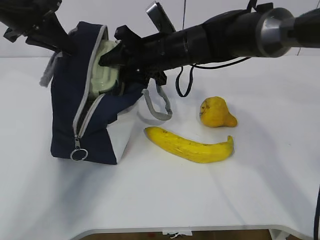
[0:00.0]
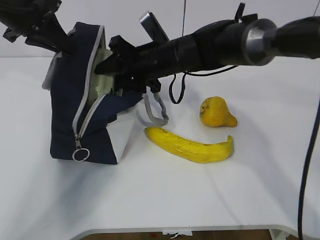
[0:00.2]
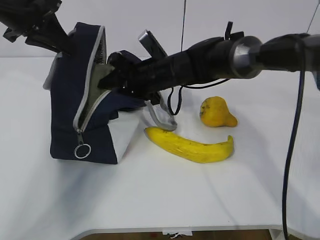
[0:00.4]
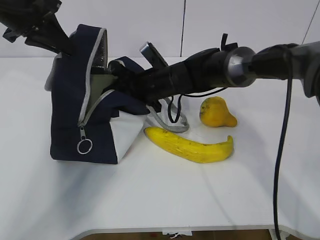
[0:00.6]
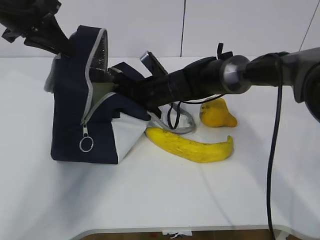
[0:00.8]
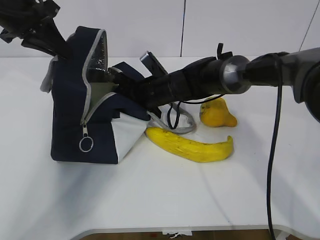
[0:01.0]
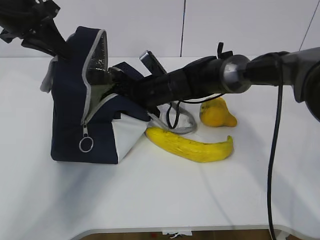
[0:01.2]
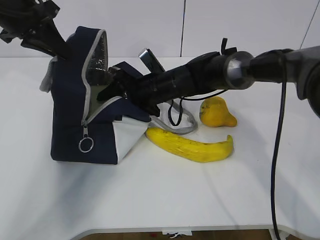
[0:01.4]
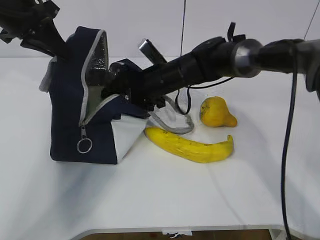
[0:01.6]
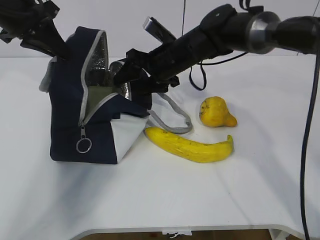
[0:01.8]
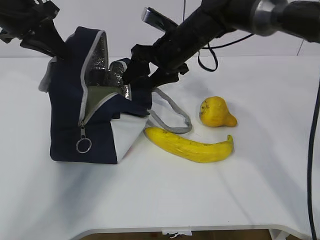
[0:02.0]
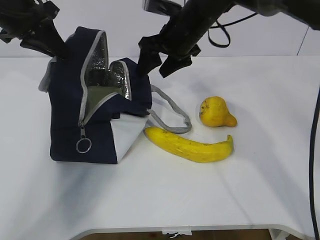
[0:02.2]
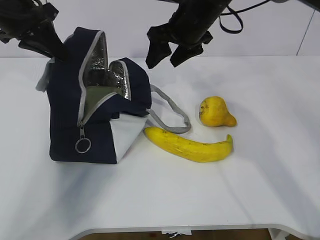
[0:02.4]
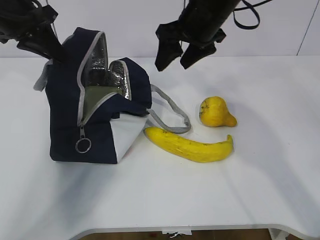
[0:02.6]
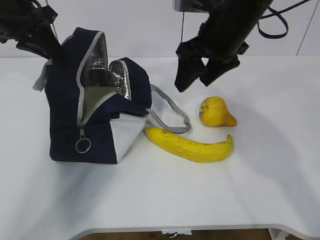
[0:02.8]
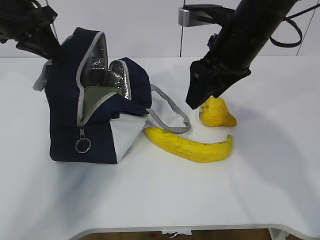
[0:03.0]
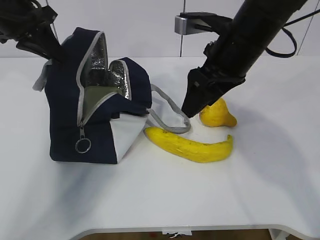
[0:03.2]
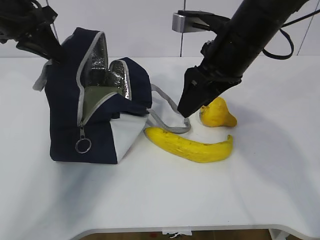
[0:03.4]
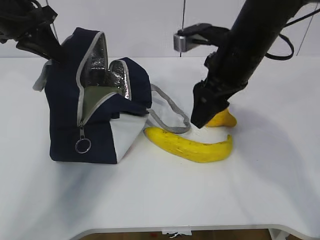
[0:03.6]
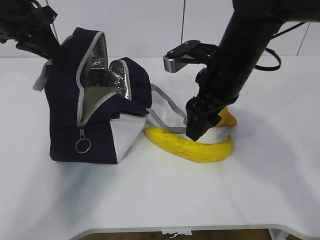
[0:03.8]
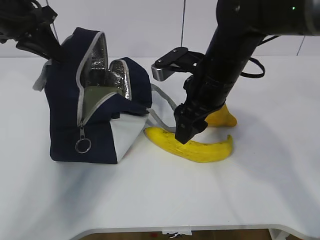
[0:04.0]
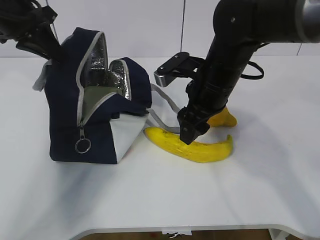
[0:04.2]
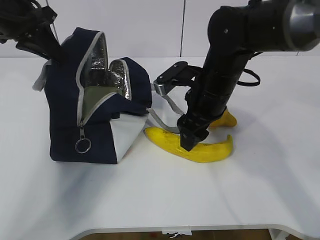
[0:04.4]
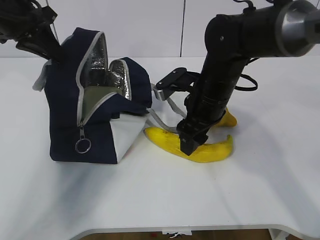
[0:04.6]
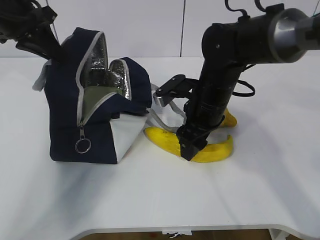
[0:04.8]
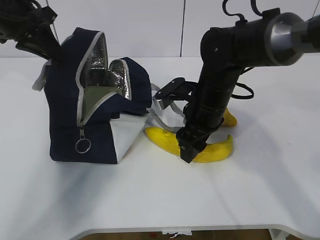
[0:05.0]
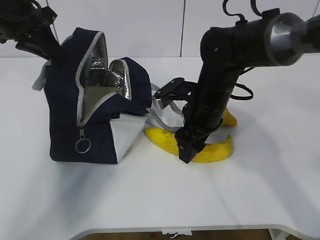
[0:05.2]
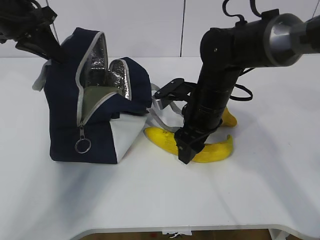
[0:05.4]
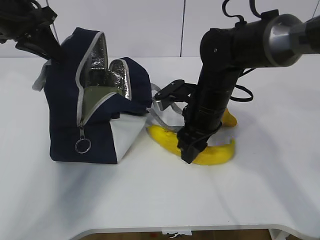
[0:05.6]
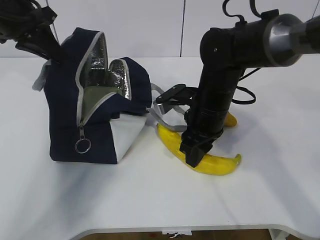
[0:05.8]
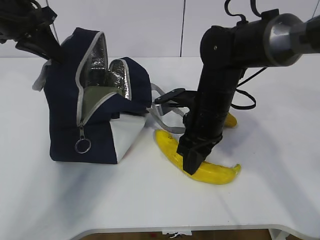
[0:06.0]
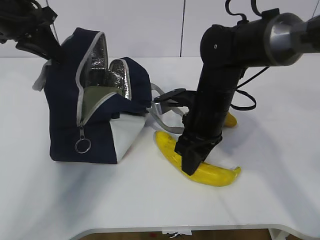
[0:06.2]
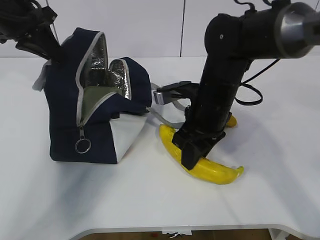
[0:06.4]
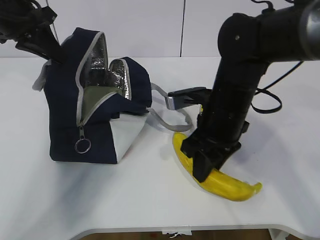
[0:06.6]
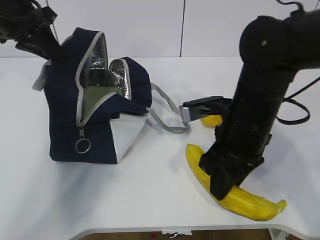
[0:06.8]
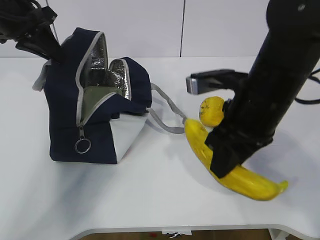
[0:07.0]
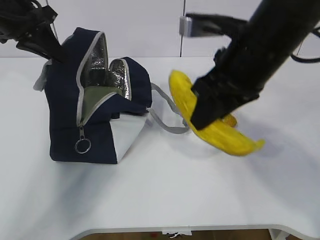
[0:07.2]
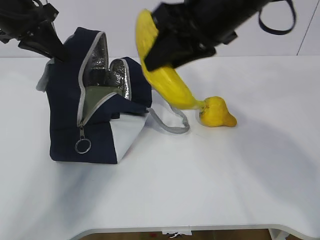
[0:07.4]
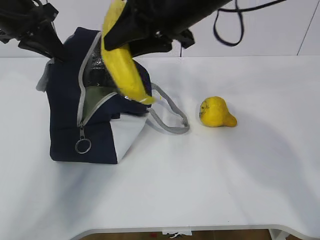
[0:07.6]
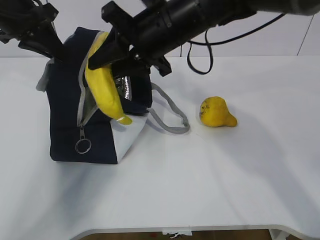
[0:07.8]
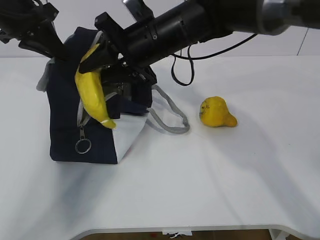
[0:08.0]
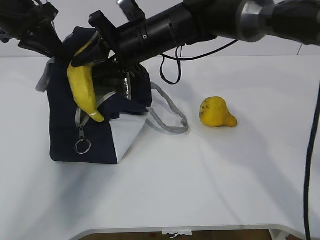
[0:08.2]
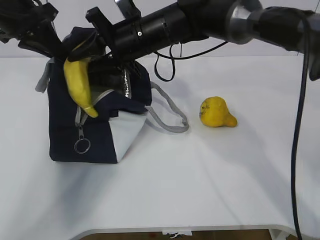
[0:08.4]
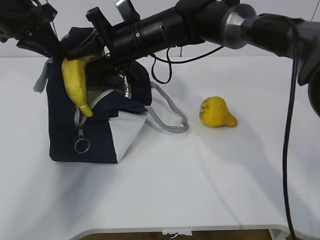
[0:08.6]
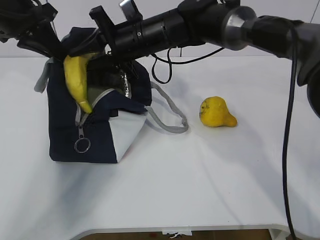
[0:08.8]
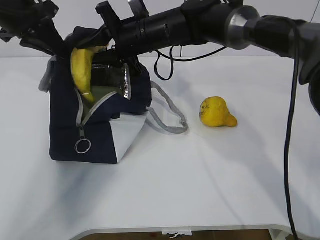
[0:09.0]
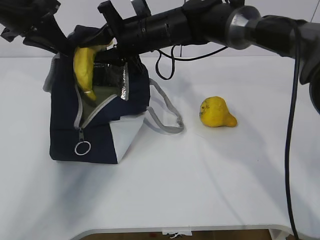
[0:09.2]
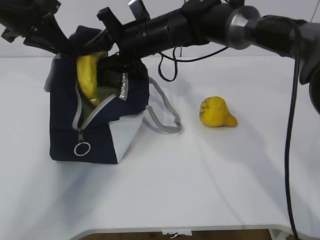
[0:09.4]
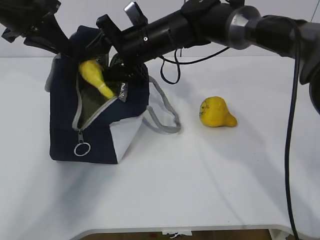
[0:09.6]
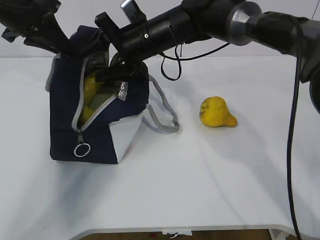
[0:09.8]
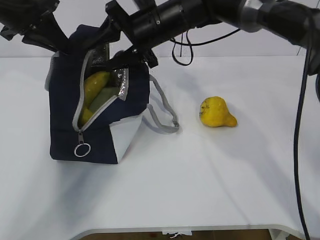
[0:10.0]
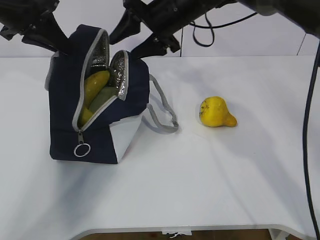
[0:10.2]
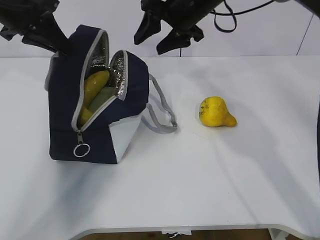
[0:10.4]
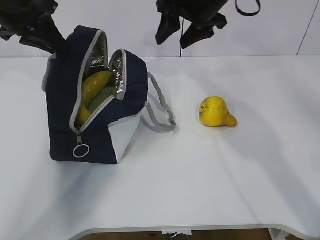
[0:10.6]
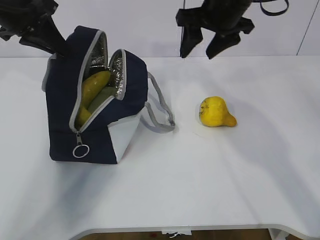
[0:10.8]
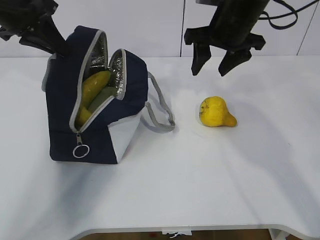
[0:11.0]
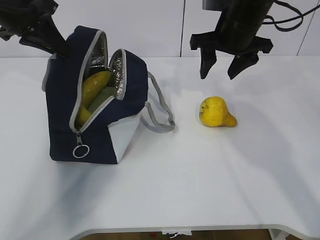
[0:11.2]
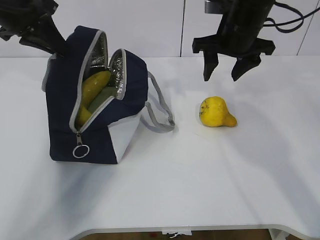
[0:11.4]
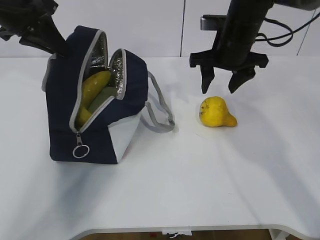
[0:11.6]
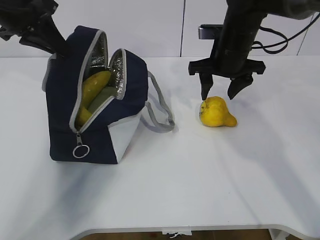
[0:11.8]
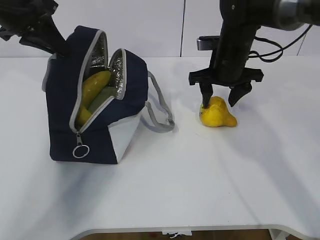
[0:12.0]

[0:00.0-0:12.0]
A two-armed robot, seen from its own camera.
Step, 0:00.0 to 0:02.0: Place the box into the package with the right gripper.
Step, 0:02.2 to 0:05.8: Grasp the banana with the right gripper.
Step, 0:06.0 to 0:10.0: Place the banana into the package with the right gripper.
0:00.0 to 0:01.6: The right gripper goes about 10 cm downward, and opens up.
0:01.6 to 0:03.0: The right gripper is displaced upward, backward and to the right by about 20 cm.
0:03.0 to 0:04.4: The right gripper travels downward by roughly 10 cm.
0:04.4 to 0:06.0: The right gripper closes its fingers.
0:06.0 to 0:07.6: The right gripper heads upward, covering about 20 cm.
0:07.6 to 0:09.0: The right gripper travels forward, downward and to the left by roughly 15 cm.
0:09.0 to 0:10.4: The right gripper moves to the right, approximately 10 cm, and opens its fingers.
0:10.4 to 0:12.0: The right gripper goes some 10 cm downward and to the right.

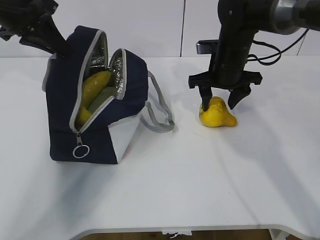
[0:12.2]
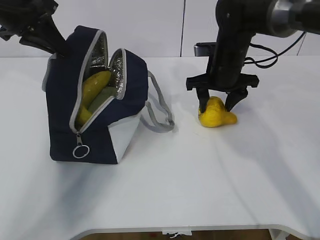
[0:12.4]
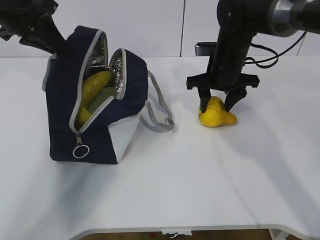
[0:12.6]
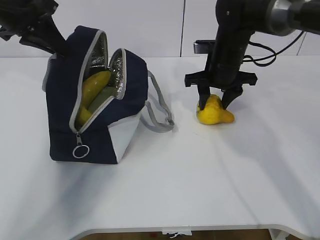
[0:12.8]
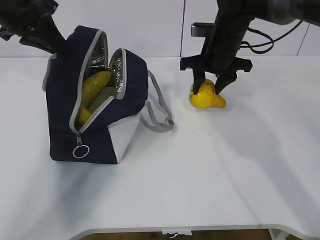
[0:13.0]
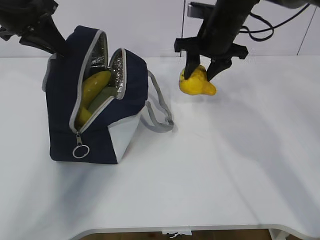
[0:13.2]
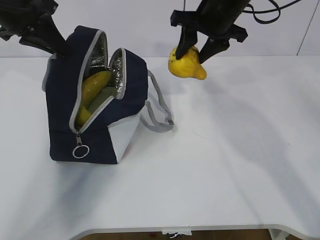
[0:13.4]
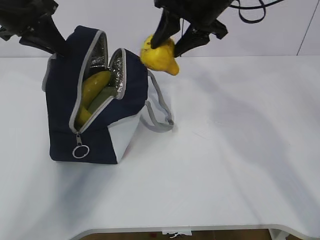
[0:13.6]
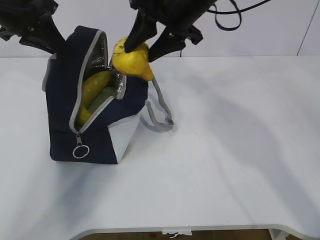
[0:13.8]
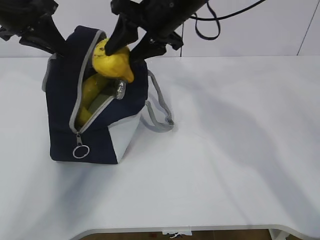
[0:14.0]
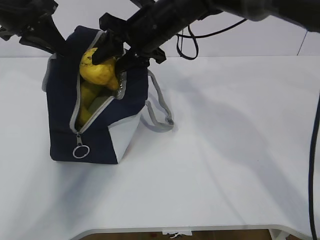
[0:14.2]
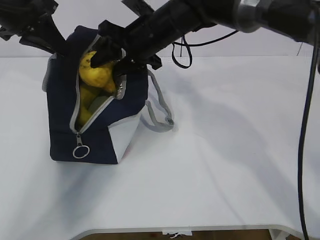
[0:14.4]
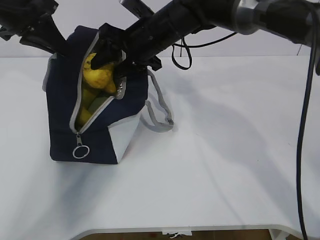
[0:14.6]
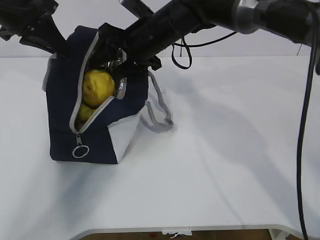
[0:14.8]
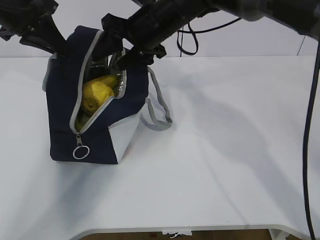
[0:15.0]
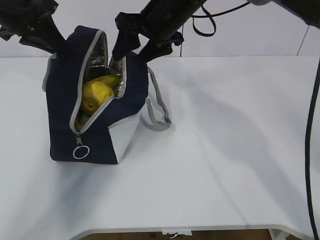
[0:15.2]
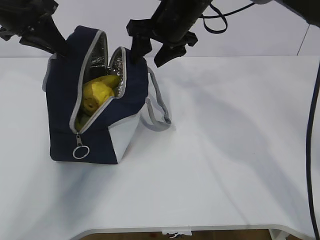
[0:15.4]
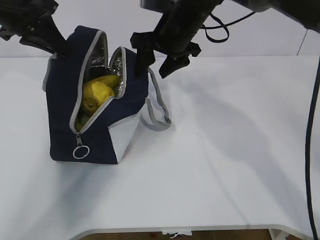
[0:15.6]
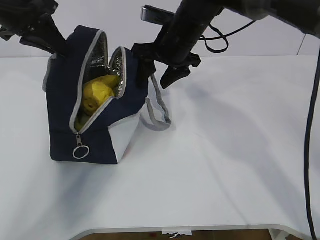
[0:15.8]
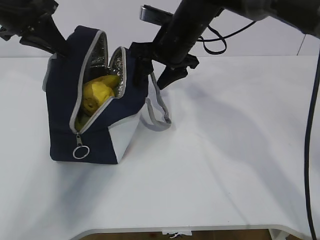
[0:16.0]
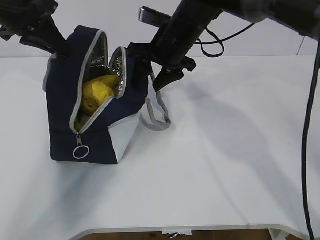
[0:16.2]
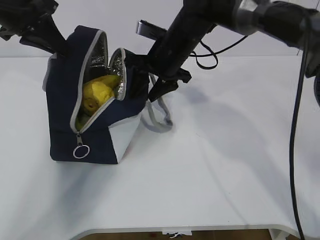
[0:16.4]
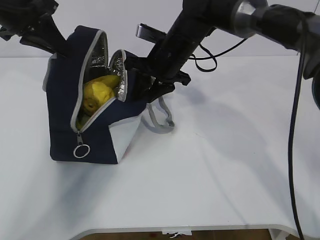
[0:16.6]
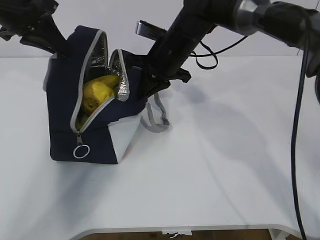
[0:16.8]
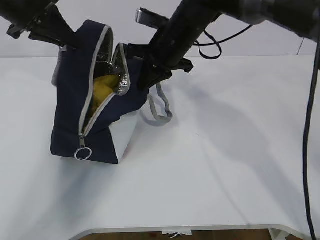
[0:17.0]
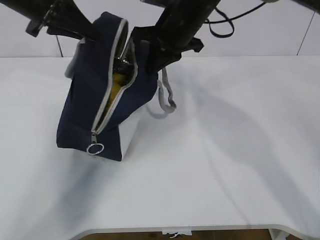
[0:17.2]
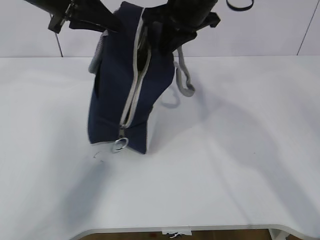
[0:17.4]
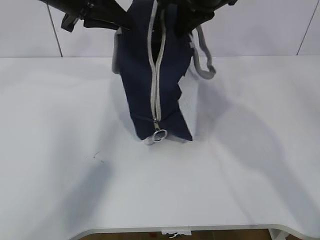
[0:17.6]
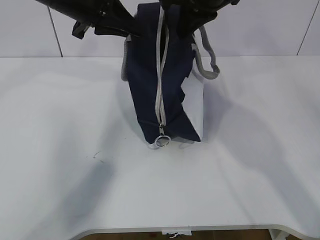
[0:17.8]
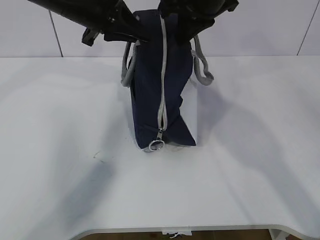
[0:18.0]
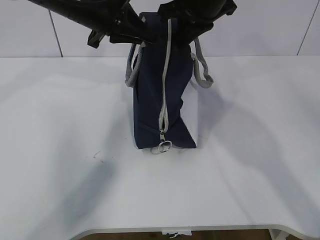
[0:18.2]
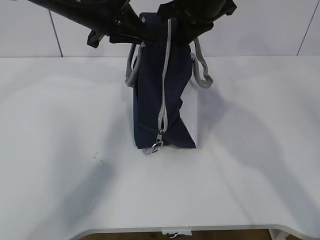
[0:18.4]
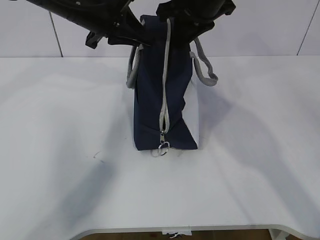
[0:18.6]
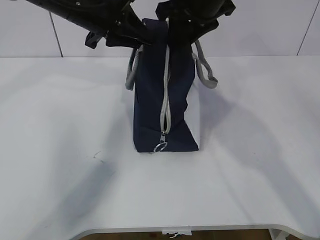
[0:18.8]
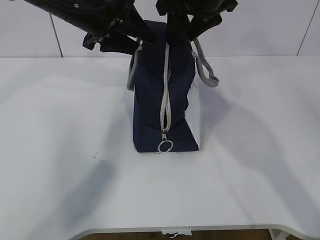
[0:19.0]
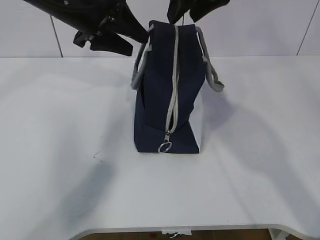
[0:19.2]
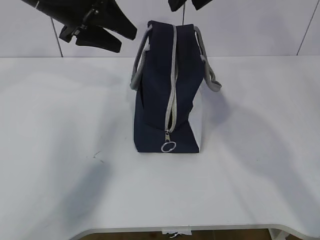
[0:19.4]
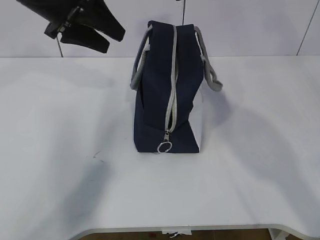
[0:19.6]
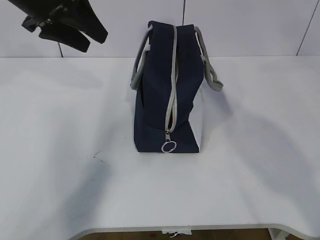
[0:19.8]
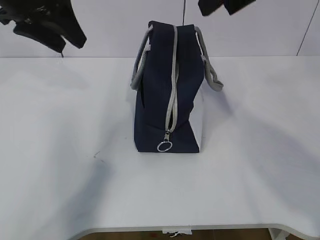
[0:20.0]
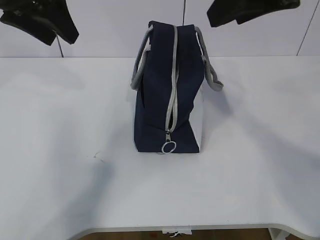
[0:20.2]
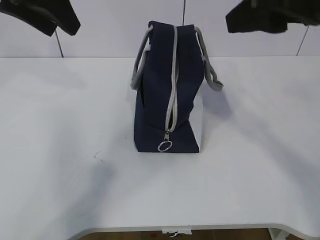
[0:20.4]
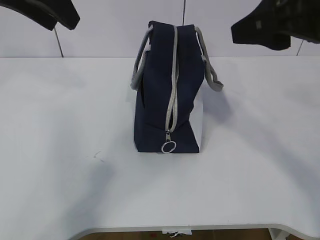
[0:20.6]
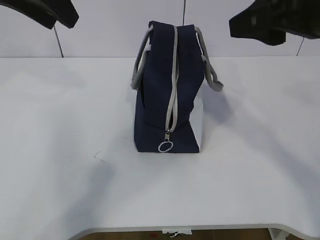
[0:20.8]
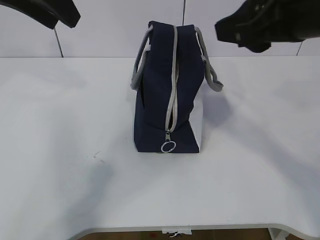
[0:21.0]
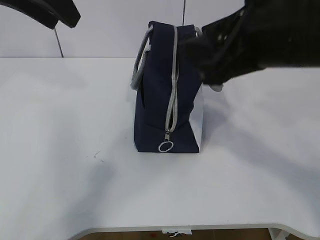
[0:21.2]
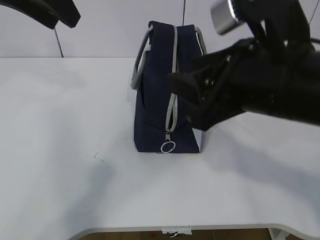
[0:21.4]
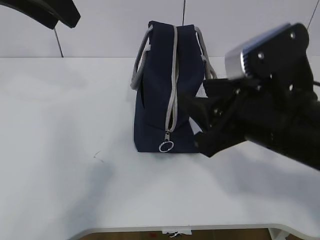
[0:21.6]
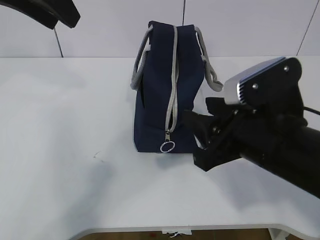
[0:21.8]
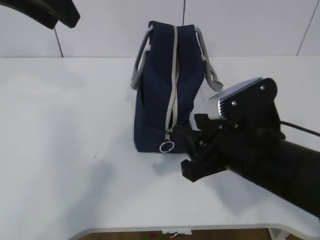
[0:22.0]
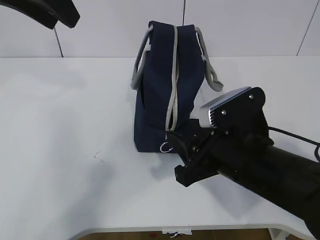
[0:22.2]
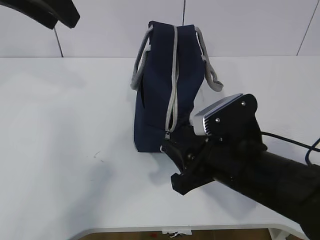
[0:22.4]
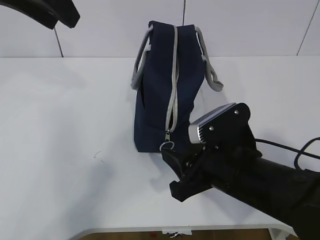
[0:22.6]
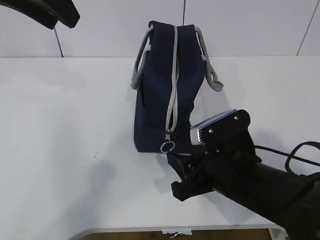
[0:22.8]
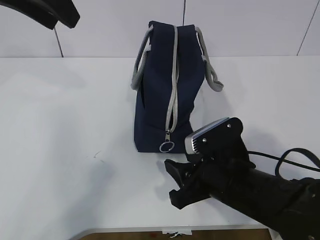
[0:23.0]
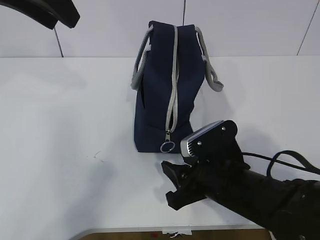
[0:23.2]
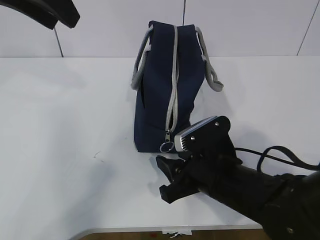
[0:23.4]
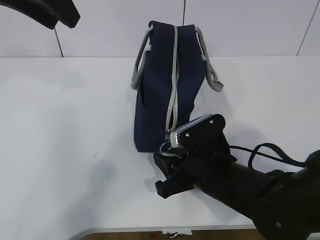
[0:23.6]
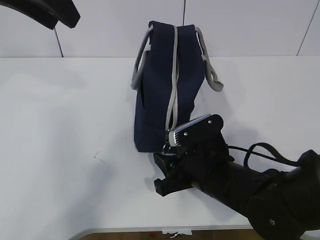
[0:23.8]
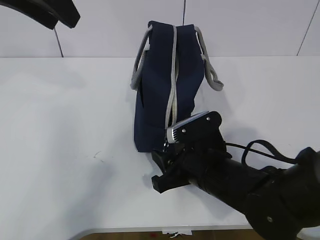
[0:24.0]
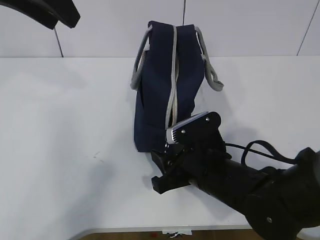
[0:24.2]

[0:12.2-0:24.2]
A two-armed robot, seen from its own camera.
Step, 0:12.8 to 0:15.0: Place the pear into the package with the right gripper.
0:12.2 to 0:13.8: The right gripper goes about 15 cm upward and to the left.
0:15.2 to 0:16.6: The right gripper is displaced downward by some 5 cm, and closes up.
0:16.6 to 0:18.2: The right gripper moves upward, roughly 10 cm, and closes up, while the left gripper heads to the right, covering roughly 10 cm.
0:18.2 to 0:19.8: The left gripper moves to the left, about 5 cm, and opens. The right gripper is displaced upward and backward by about 10 cm, and opens its fingers.
0:19.8 to 0:21.2: The right gripper heads backward and downward, covering roughly 15 cm. Meanwhile the left gripper shifts roughly 10 cm backward and upward.
0:21.2 to 0:22.6: The right gripper shifts about 20 cm downward.
0:22.6 to 0:24.2: The right gripper shifts by some 5 cm.
